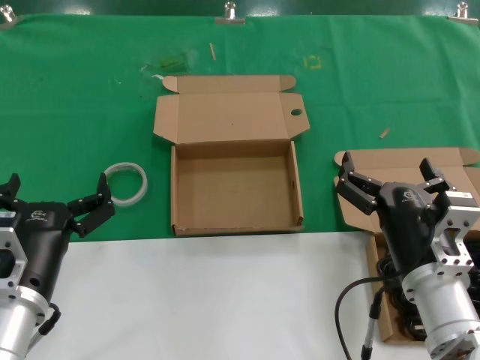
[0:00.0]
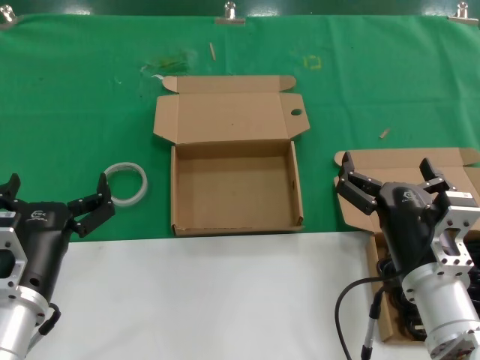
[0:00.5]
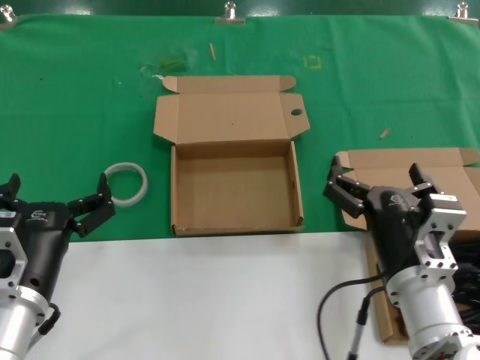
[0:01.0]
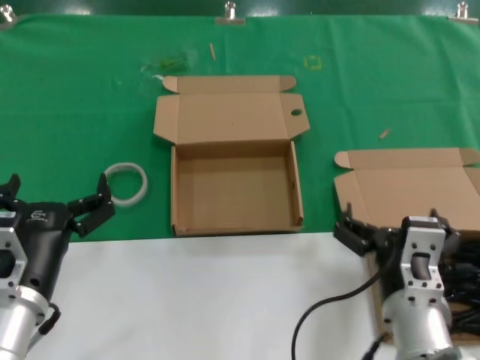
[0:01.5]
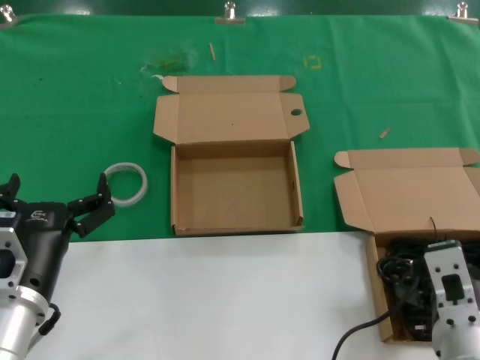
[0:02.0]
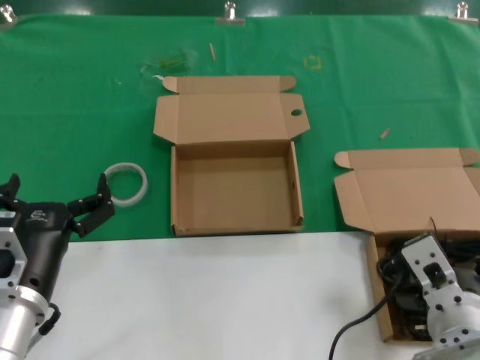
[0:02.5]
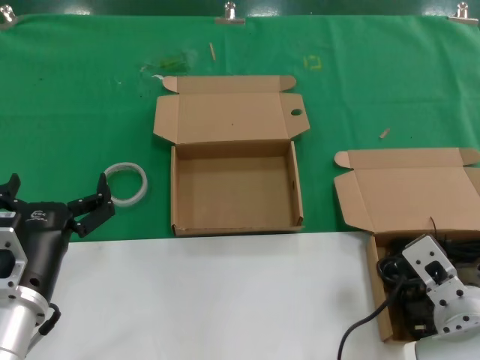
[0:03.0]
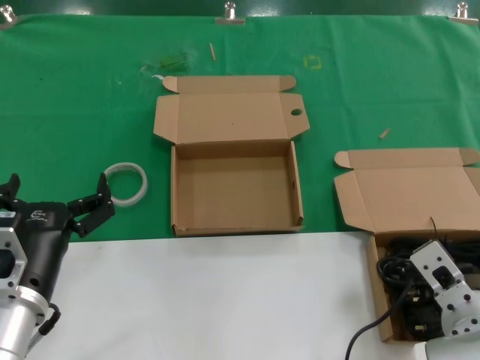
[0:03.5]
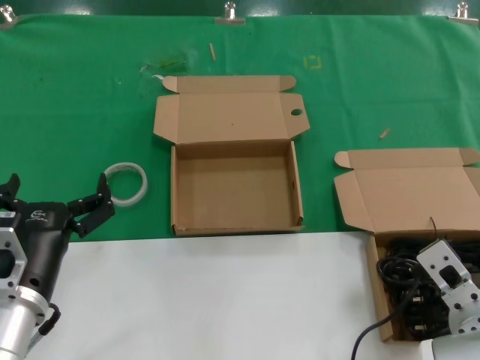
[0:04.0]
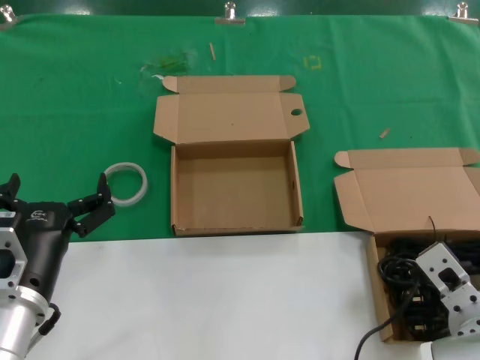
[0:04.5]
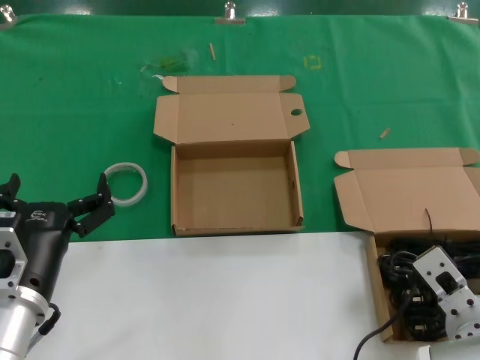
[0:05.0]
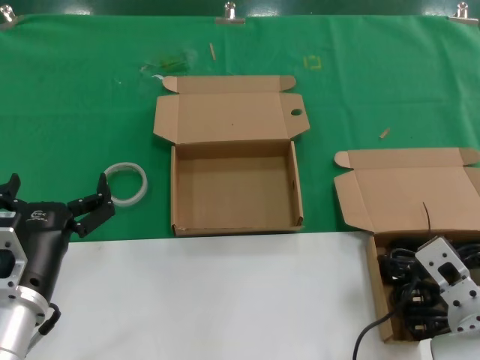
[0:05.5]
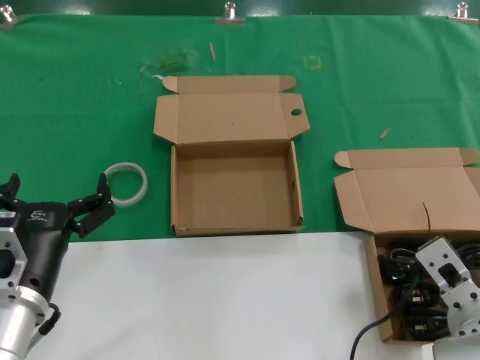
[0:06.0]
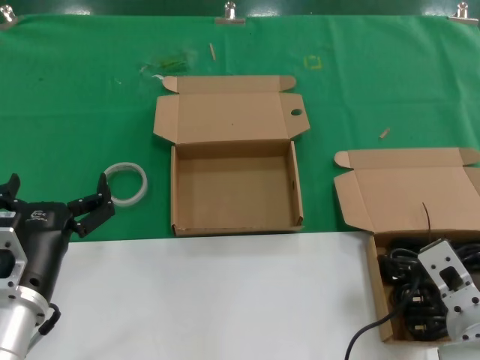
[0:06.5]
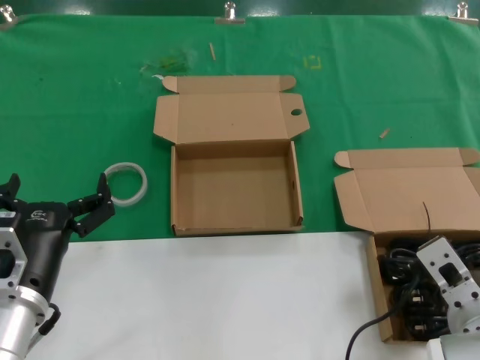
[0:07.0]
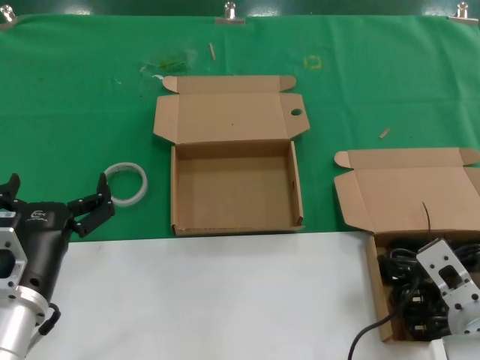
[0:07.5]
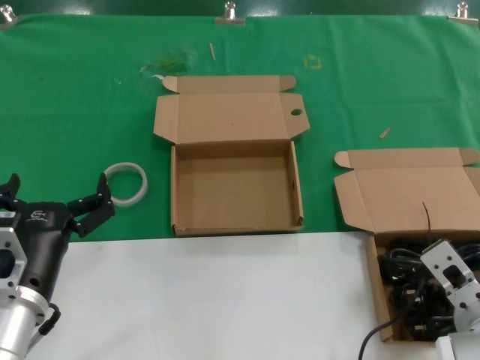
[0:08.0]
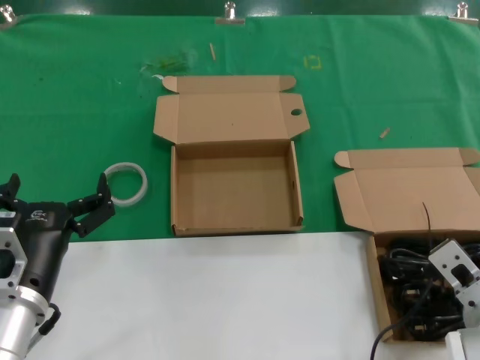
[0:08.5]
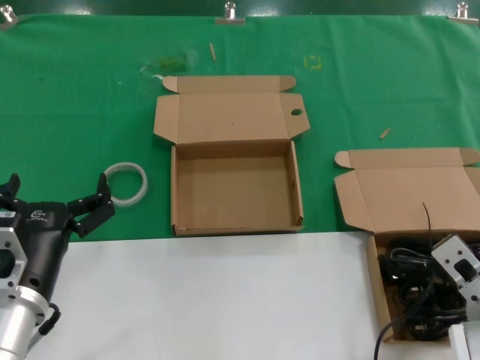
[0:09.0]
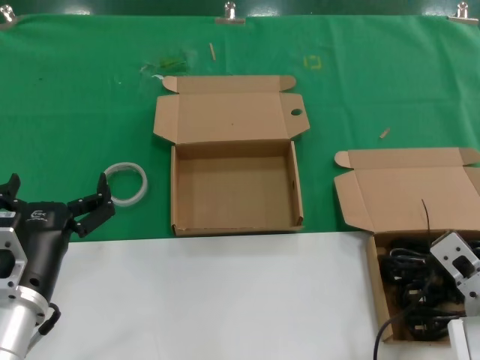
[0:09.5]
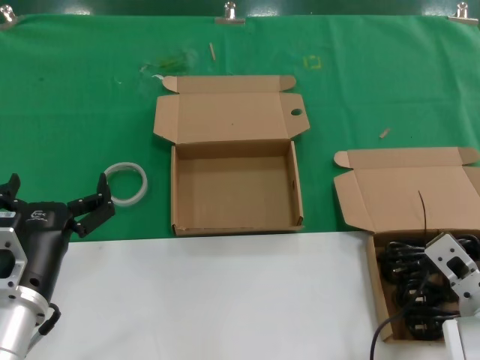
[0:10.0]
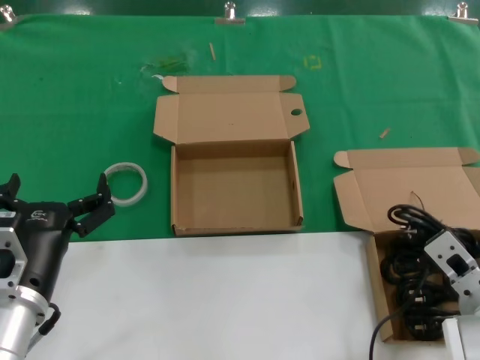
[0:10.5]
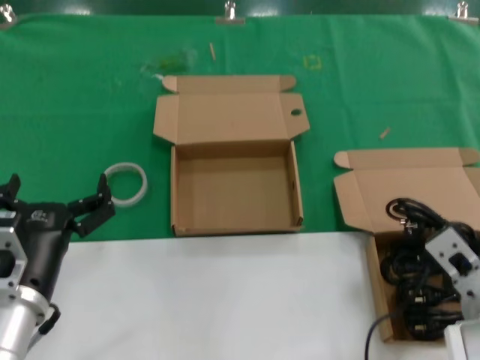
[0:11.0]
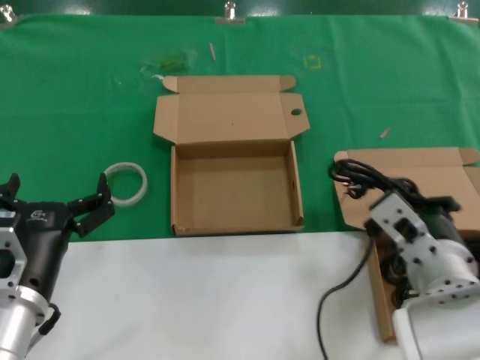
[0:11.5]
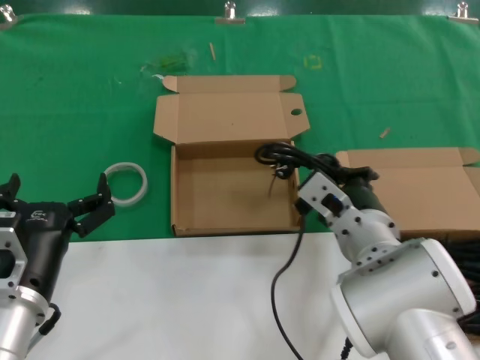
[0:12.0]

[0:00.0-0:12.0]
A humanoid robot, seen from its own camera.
Task of the whole recording: take the parts from the box containing them and put them into an empty box.
Step, 0:00.0 to 0:10.0: Grasp the data cable.
0:00.0 to 0:02.0: The right hand travels backward by some 5 cm.
0:02.0 to 0:04.0: The right hand shifts by roughly 5 cm.
0:04.0 to 0:06.0: The two hands keep their place.
0:06.0 to 0:10.0: The hands move only a little.
0:10.0 to 0:12.0: The right hand shifts roughly 15 cm to the left and upward.

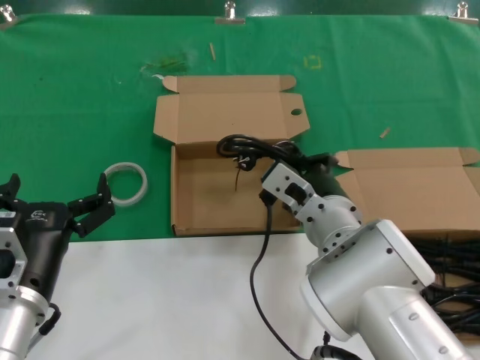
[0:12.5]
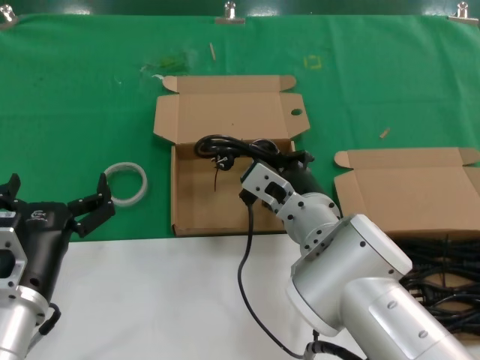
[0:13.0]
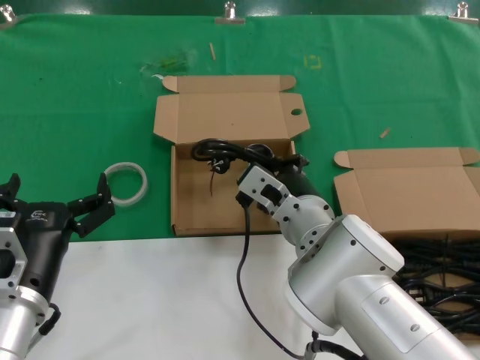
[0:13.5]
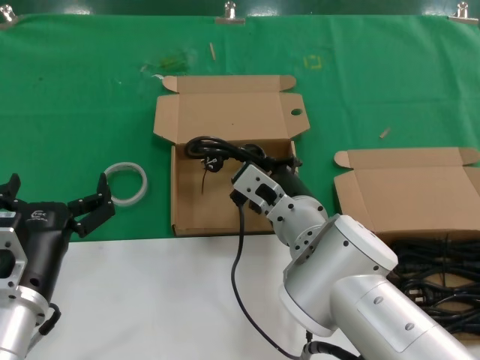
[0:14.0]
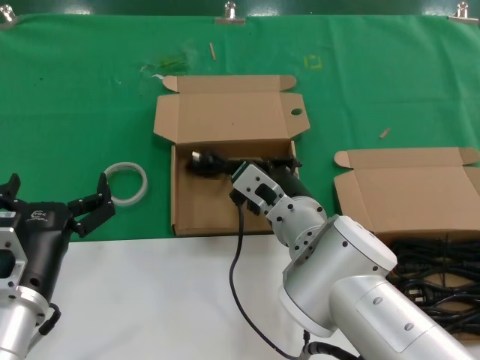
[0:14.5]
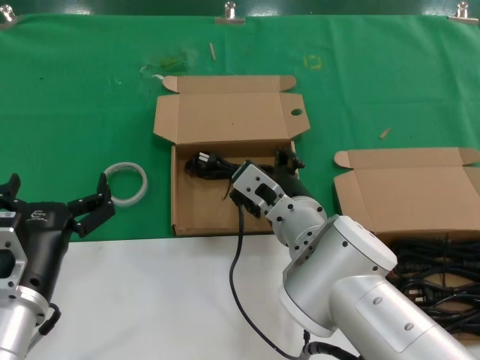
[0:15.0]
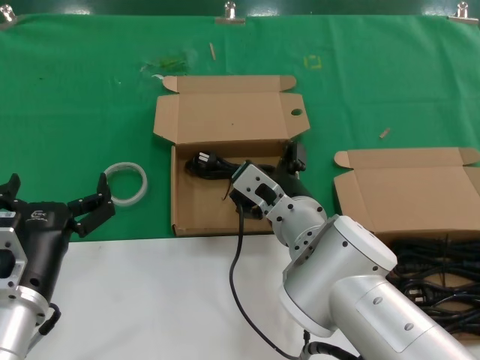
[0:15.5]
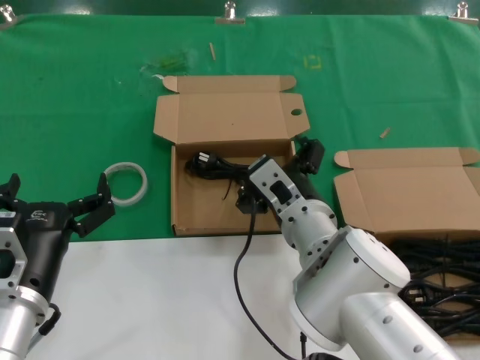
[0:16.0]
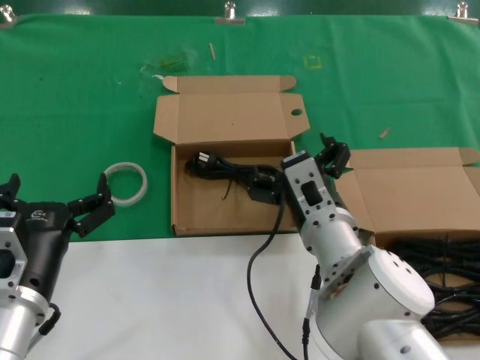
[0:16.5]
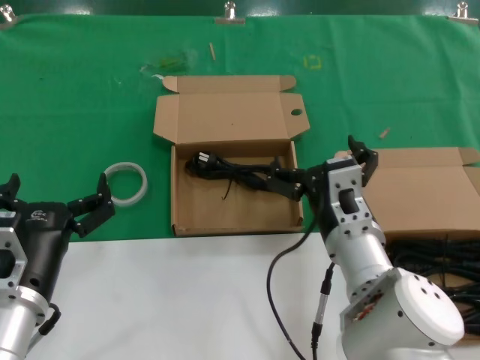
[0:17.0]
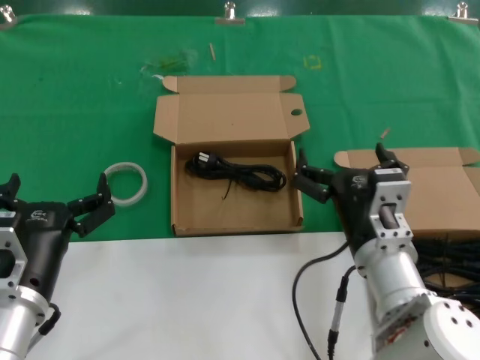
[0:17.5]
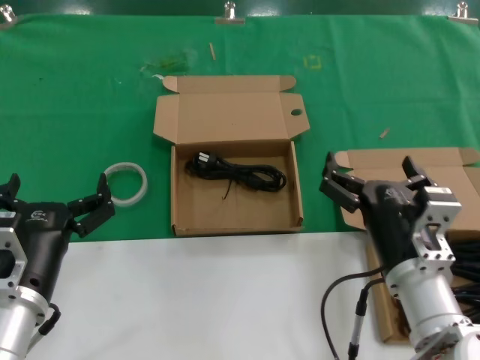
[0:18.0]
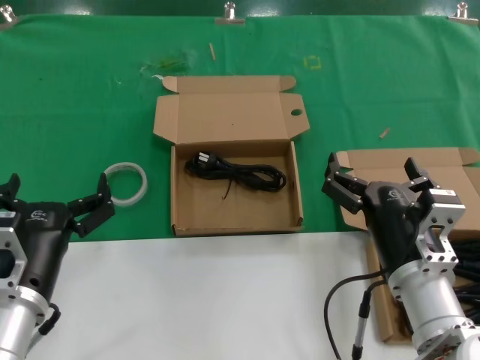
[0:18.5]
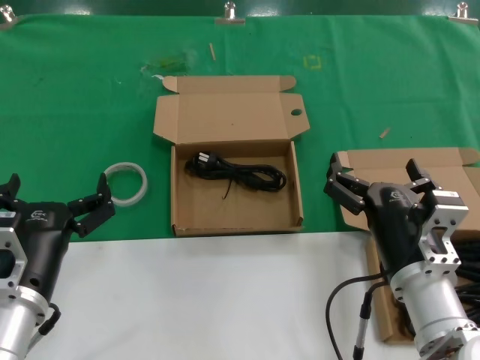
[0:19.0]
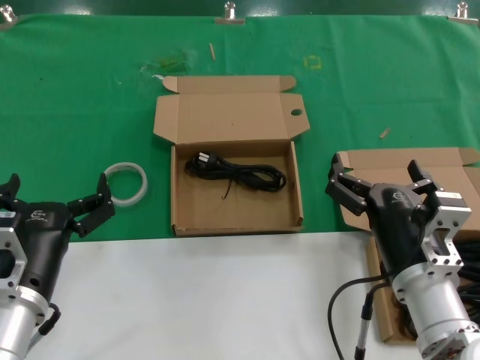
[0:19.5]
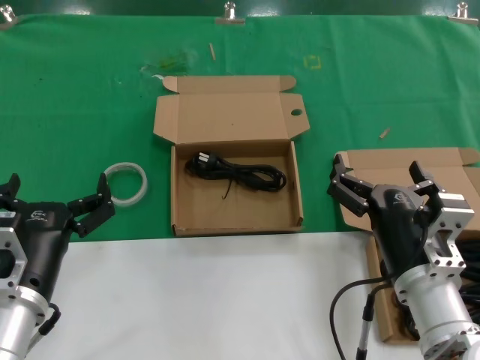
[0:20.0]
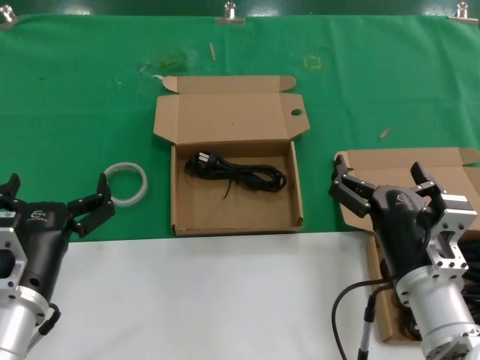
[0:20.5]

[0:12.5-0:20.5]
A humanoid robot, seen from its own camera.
Task of the whole recording: take the parts from the box containing them and put them into an empty box.
0:12.5 to 0:14.5: There are only small adjustments of the hands.
0:16.5 to 0:18.5: The right hand moves to the right and backward, roughly 10 cm.
0:18.5 to 0:20.5: Both hands stay put.

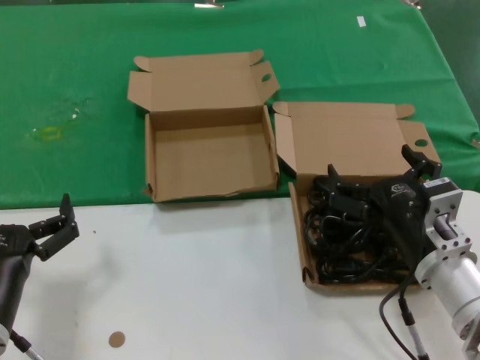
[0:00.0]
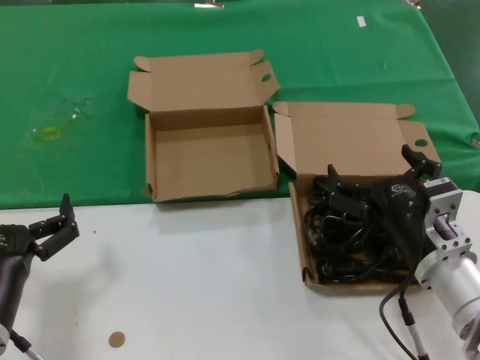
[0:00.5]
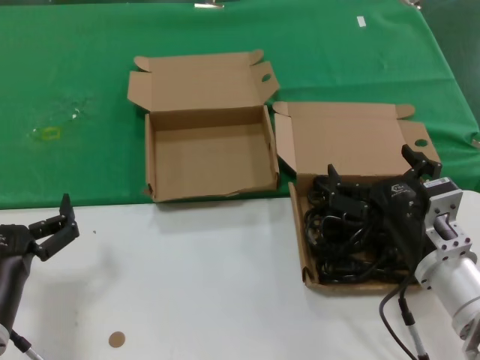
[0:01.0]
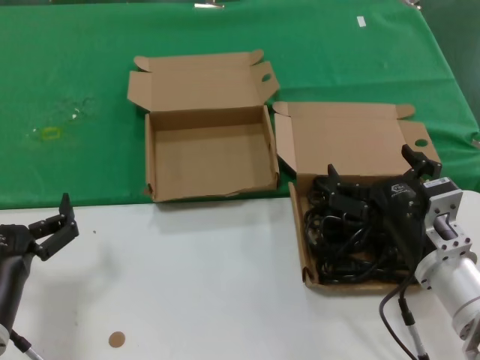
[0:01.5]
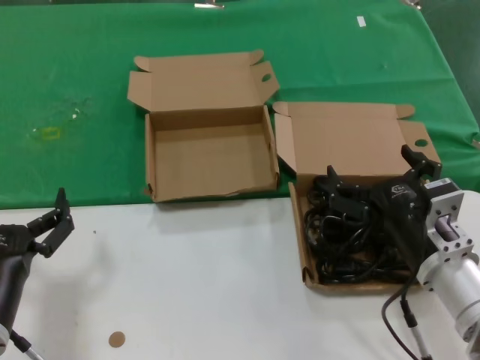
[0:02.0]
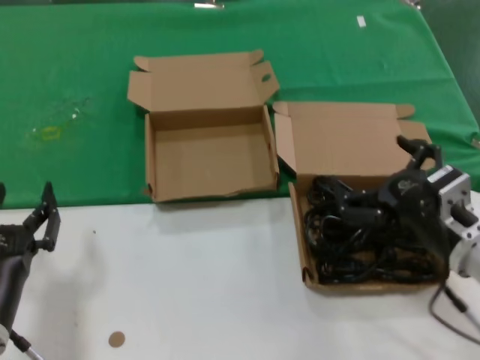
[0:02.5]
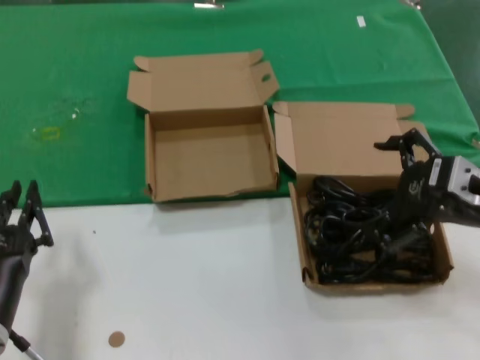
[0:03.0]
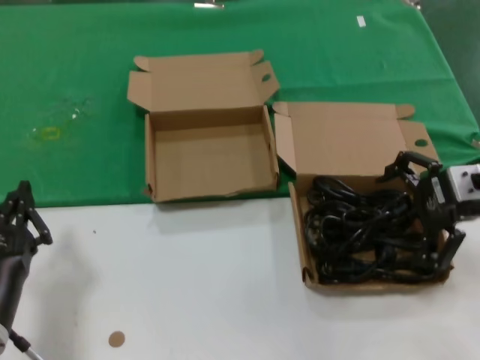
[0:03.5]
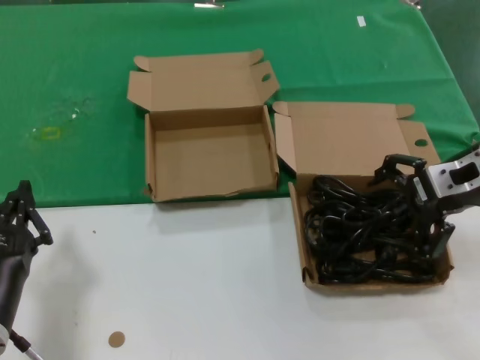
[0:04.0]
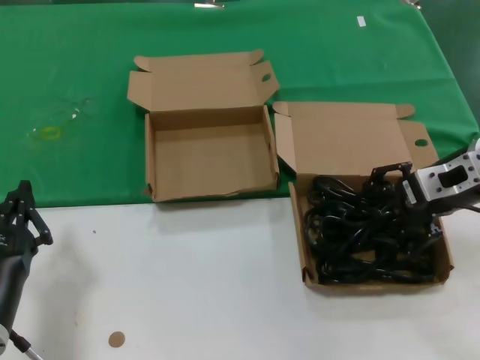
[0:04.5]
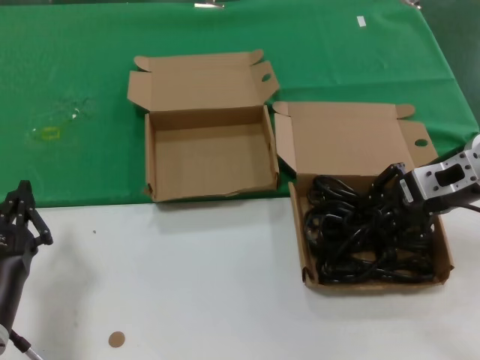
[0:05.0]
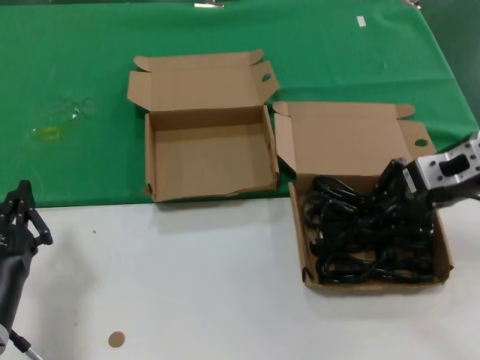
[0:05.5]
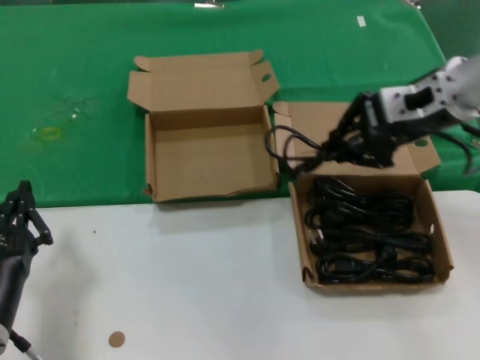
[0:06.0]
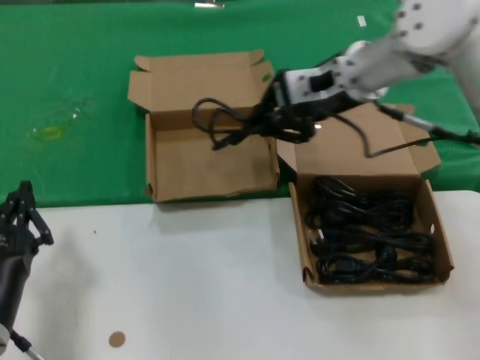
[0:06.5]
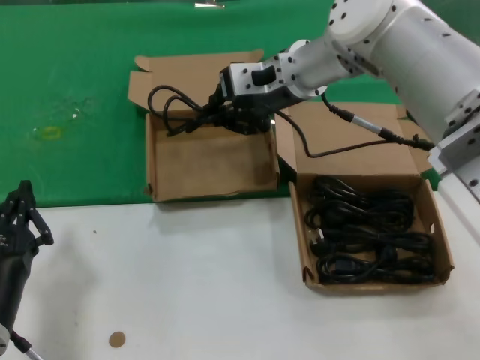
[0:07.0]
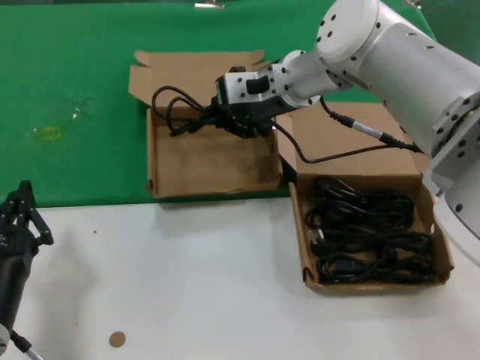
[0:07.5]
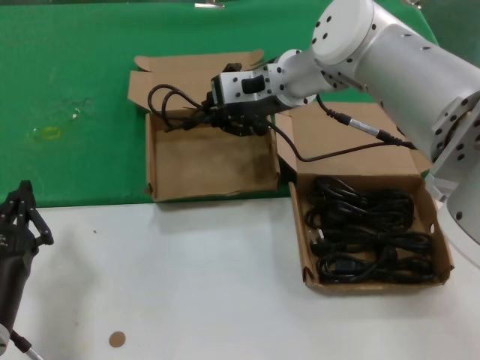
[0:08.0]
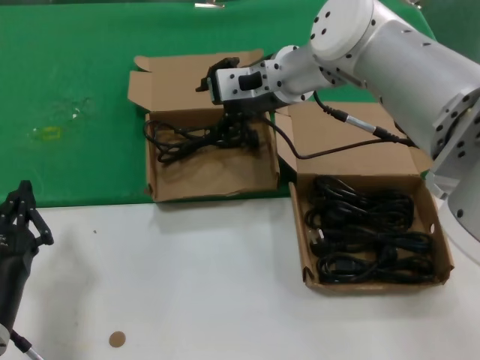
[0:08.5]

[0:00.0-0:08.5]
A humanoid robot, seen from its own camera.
Task of the whole recording: take the parts from the box containing them and put them into an empty box.
Step, 0:00.0 to 0:05.0: Grasp the data cable.
Step, 0:05.5 to 0:08.0: Place the data cable in the another box.
0:00.0 to 0:02.0: Neither hand changes place.
0:02.0 to 0:04.0: The right hand goes about 20 cm upward, forward and to the right.
0:04.0 to 0:06.5: The right hand travels to the left, forward and upward by approximately 20 cm.
0:06.5 to 0:08.5: The right hand heads to the left, covering roughly 10 cm.
